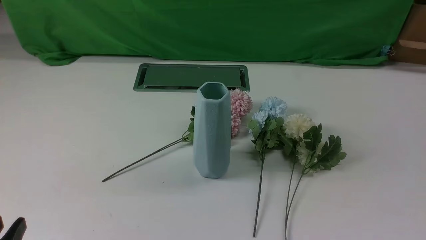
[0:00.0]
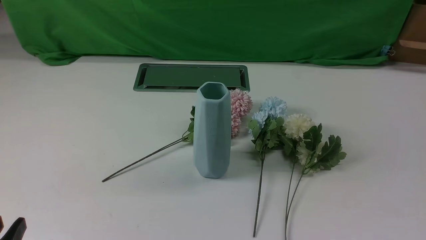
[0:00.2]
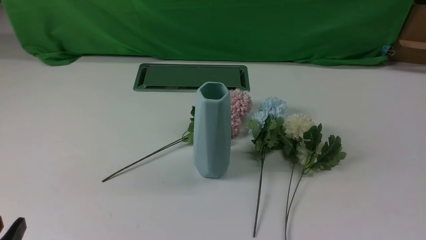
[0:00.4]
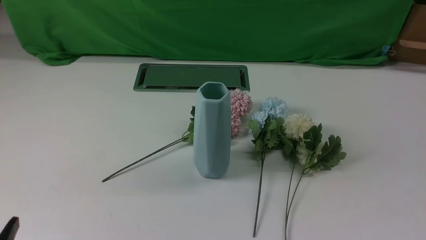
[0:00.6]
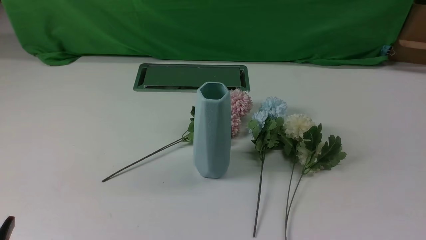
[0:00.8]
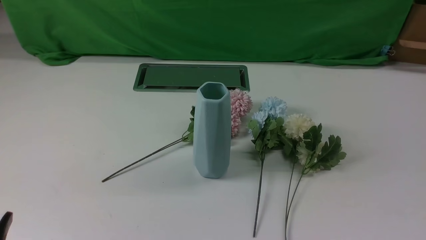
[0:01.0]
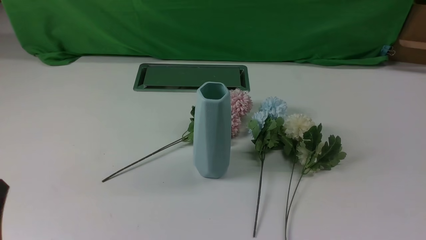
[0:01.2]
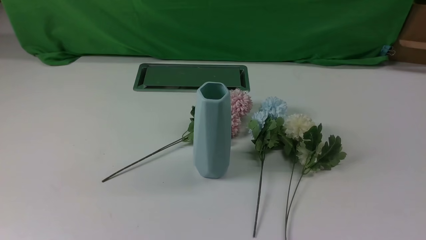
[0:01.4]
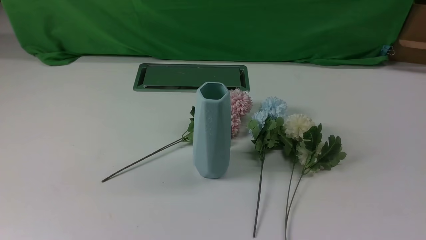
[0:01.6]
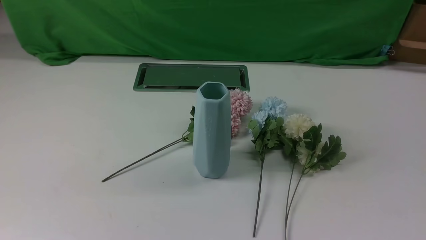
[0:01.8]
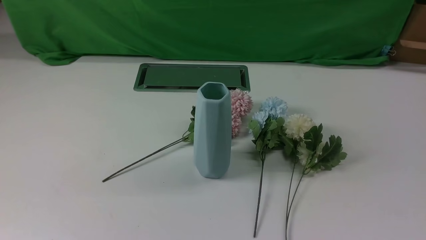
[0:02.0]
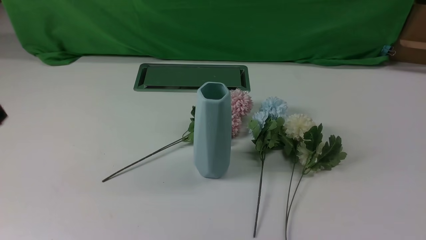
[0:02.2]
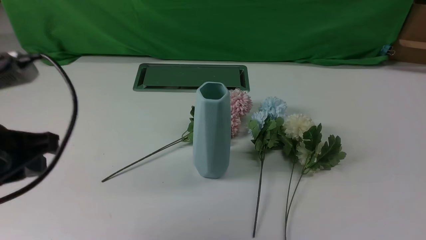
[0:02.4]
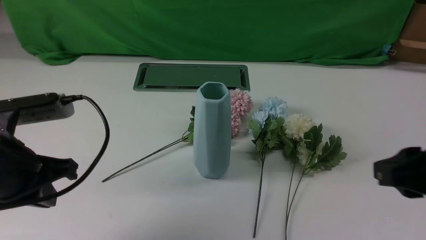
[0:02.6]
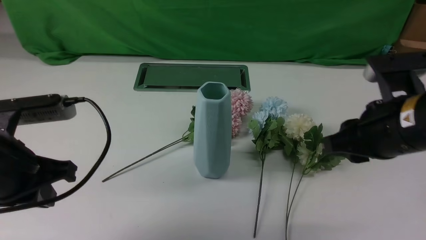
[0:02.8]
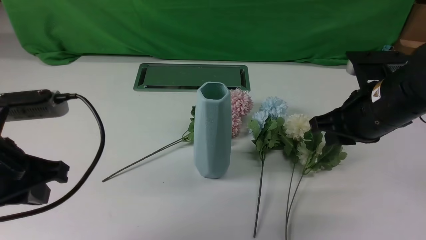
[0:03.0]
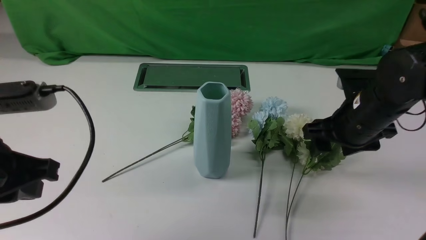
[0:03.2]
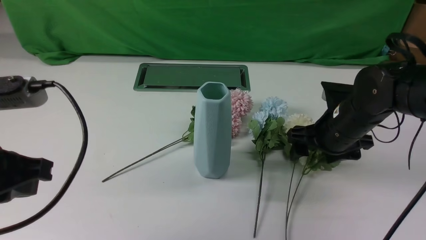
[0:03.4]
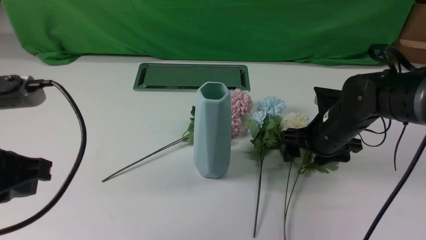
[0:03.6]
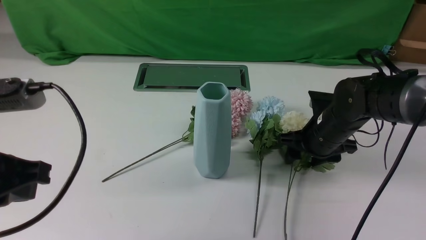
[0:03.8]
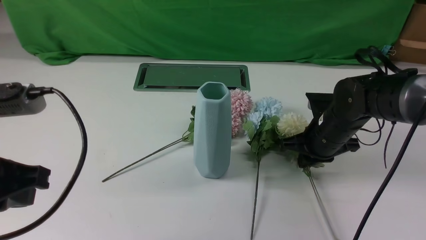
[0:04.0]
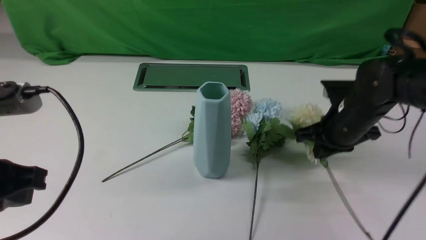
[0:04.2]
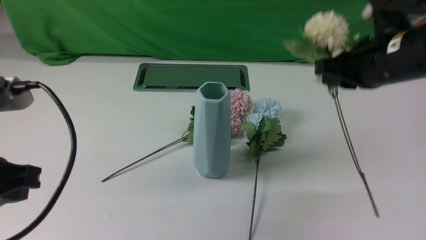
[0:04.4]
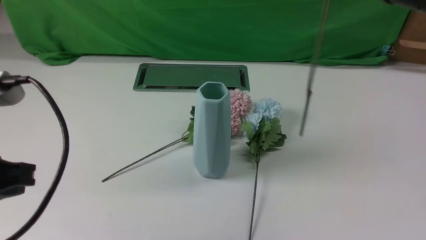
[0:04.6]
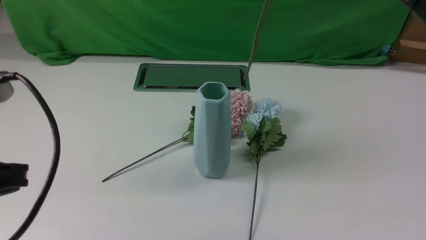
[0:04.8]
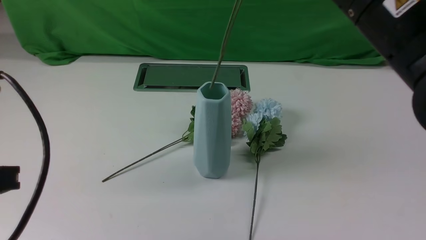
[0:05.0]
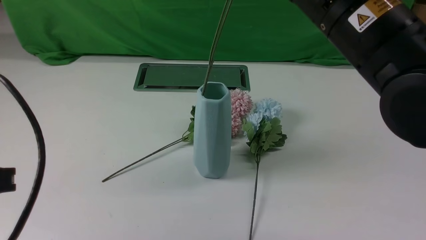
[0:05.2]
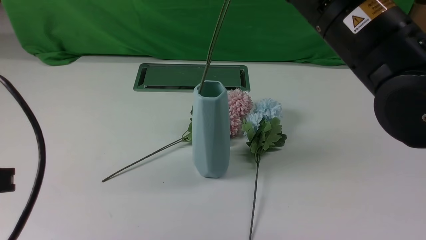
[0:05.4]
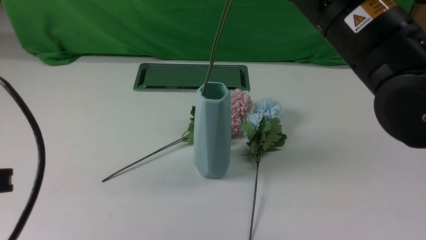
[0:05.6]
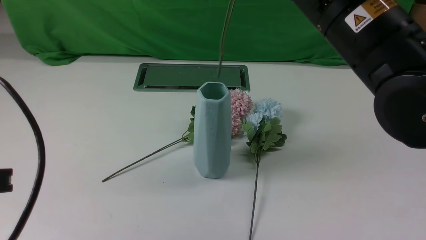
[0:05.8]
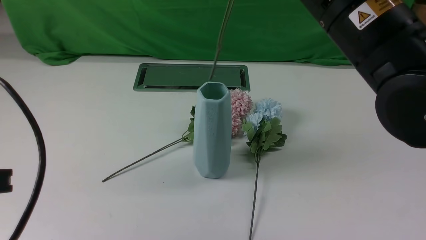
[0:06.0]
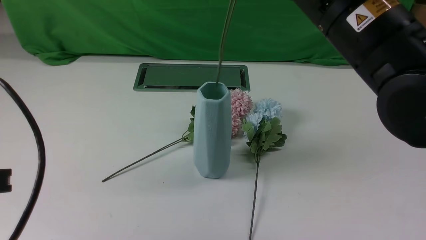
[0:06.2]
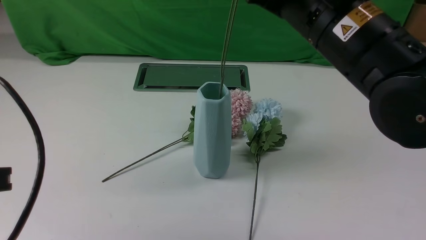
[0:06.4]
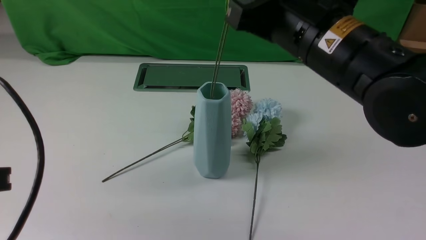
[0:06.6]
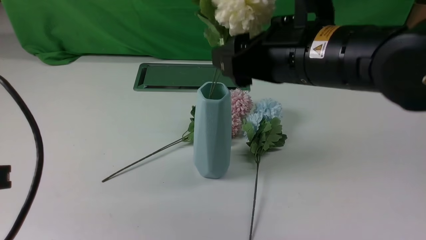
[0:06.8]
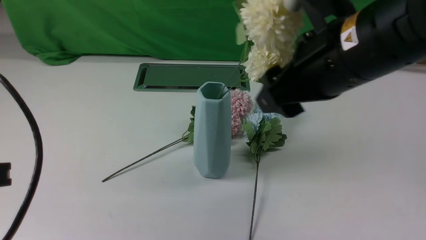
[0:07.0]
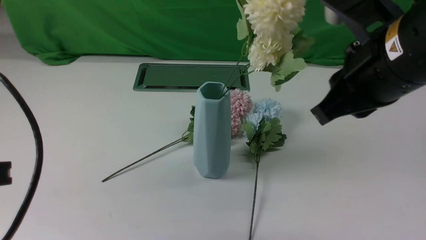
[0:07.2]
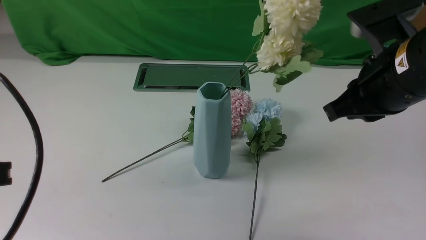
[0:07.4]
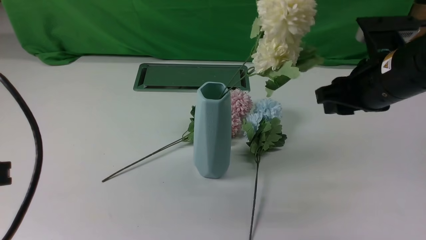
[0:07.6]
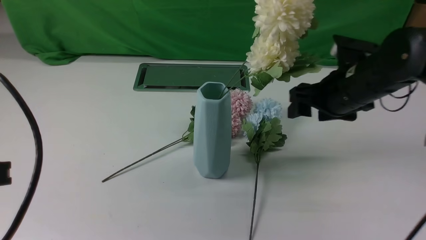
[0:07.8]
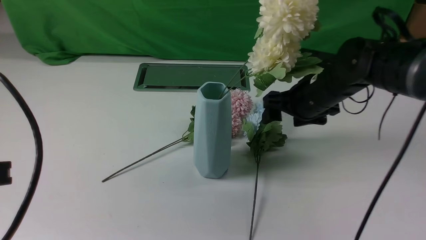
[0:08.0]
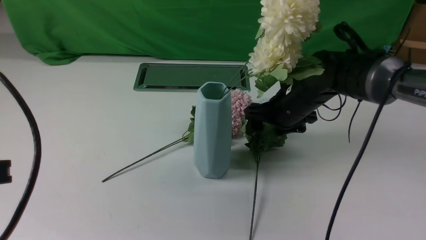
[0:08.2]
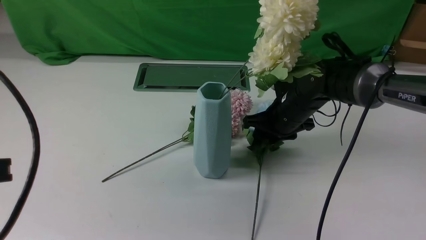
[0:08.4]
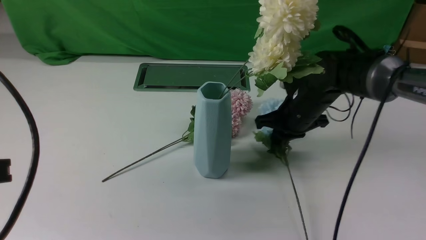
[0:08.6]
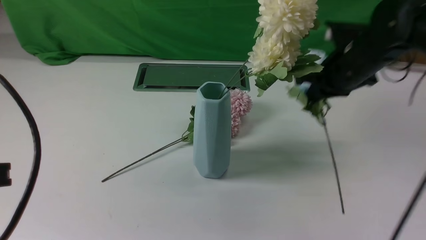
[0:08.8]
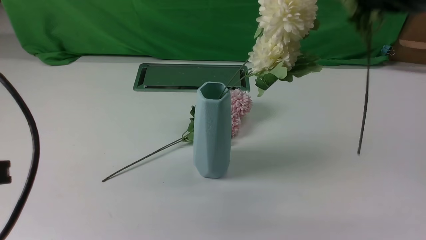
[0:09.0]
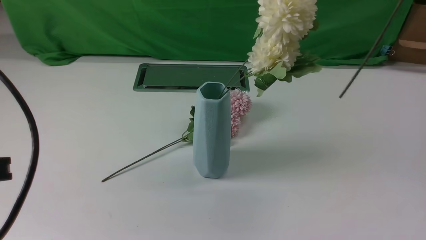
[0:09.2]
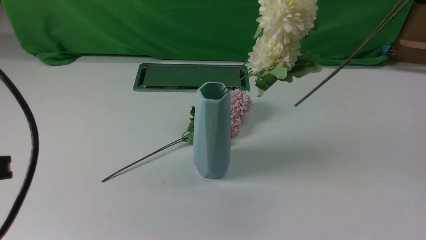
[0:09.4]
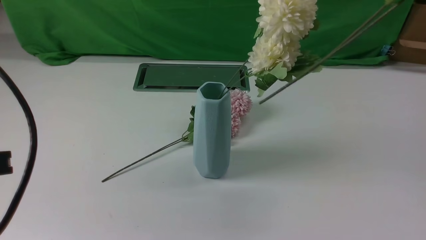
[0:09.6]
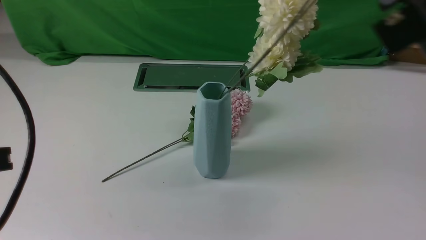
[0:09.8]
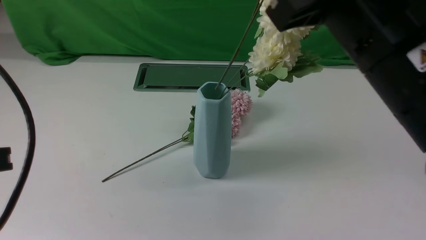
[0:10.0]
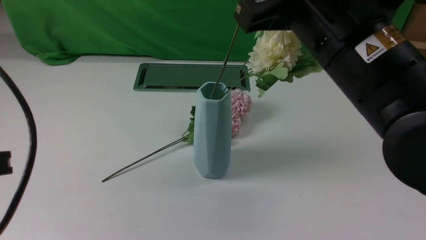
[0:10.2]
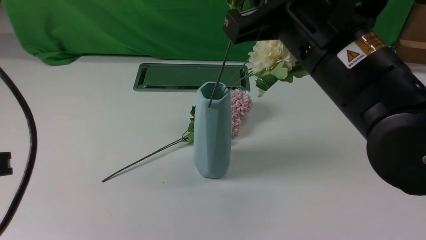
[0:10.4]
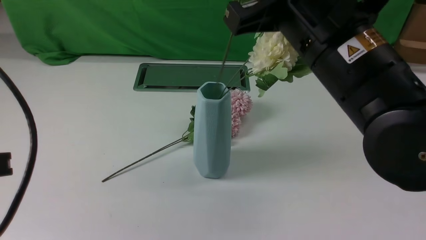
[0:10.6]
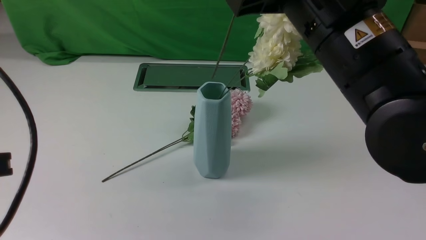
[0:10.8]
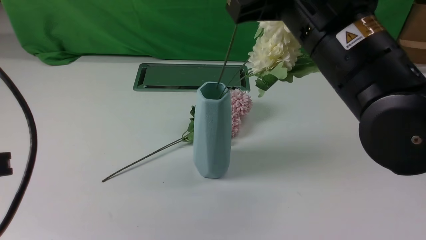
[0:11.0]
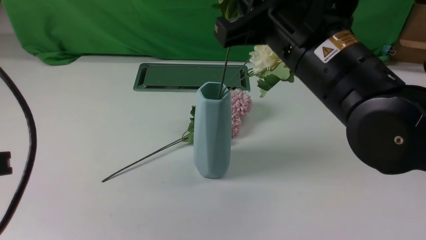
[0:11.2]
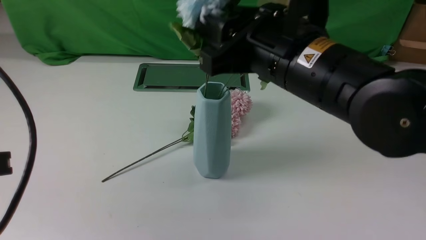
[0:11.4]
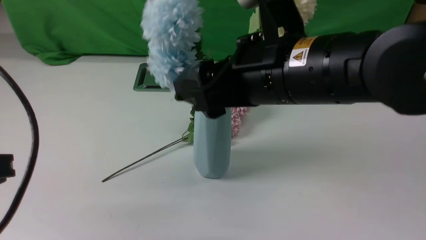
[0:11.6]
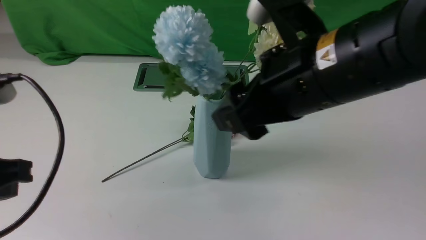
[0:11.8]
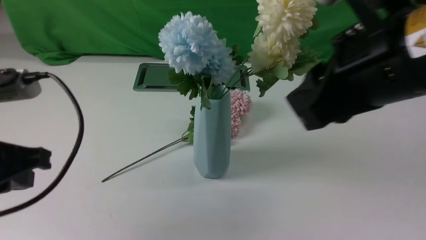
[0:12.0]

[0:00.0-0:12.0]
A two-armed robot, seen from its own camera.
Task of the whole recording: insert the flowers into the vase on the white table.
Step, 0:00.0 to 0:03.8: use the right arm to grab a bunch of fresh flowers.
Step, 0:04.0 to 0:07.0: use the right arm to insert the flowers into the vase.
Step, 0:07.2 to 0:08.4: use the right arm to grab a bunch of fresh flowers.
Step, 0:08.6 to 0:11.6: use the right arm to insert the flowers into the vase.
0:01.6 to 0:03.0: The left gripper travels forward by roughly 15 cm. The right gripper goes roughly 25 cm forward and to the left.
0:03.0 to 0:04.4: The left gripper ends up roughly 5 cm from where it was; the right gripper goes some 5 cm upward, and closes its fingers.
0:04.4 to 0:06.0: The right gripper heads to the left and upward, covering about 10 cm.
0:06.0 to 0:07.6: The right gripper goes about 15 cm downward, to the right and forward, and opens.
0:07.6 to 0:09.0: The right gripper travels upward by approximately 15 cm, and closes up.
0:09.0 to 0:10.4: The right gripper heads to the left and backward, covering roughly 15 cm.
0:10.4 to 0:12.0: The right gripper shifts by some 10 cm, and opens, then closes again. The left gripper is displaced forward by some 5 cm.

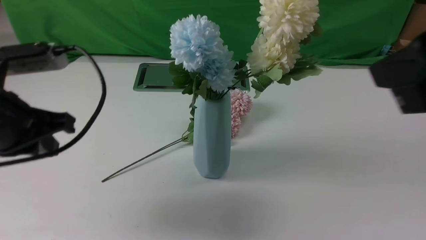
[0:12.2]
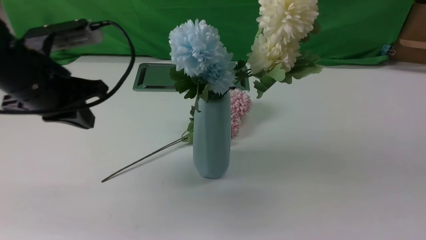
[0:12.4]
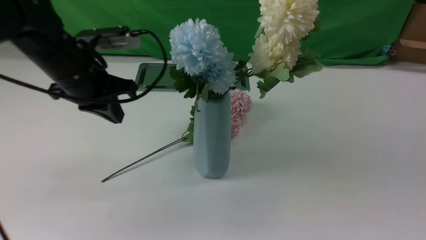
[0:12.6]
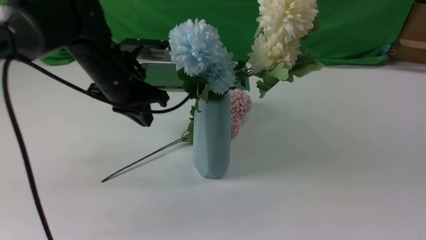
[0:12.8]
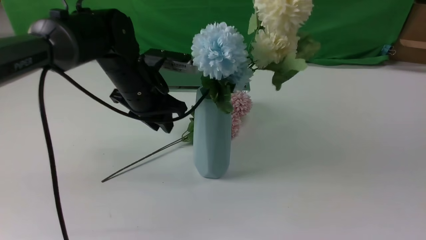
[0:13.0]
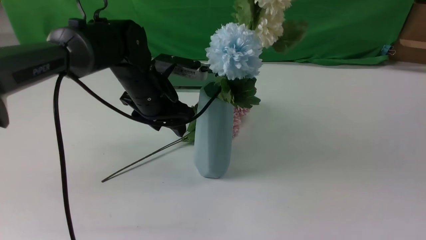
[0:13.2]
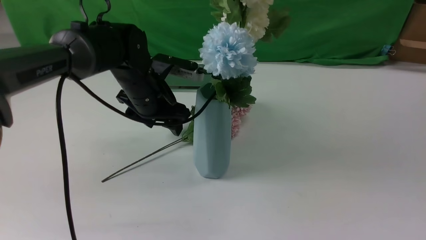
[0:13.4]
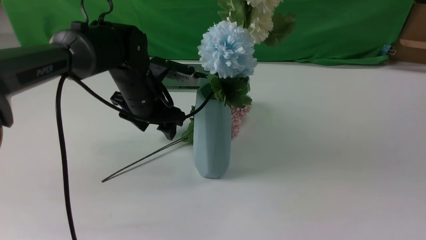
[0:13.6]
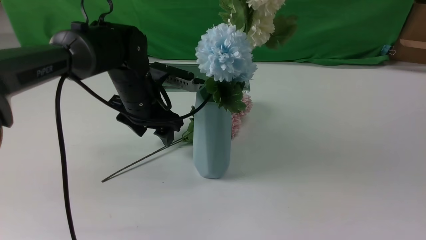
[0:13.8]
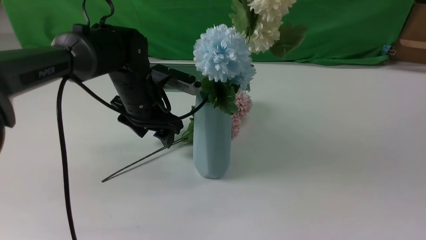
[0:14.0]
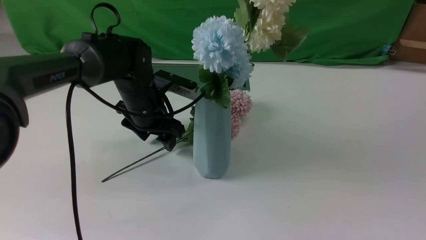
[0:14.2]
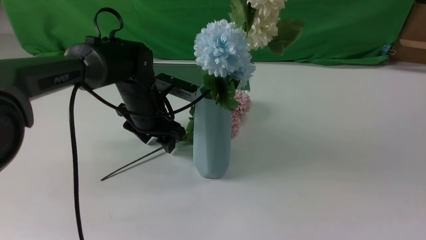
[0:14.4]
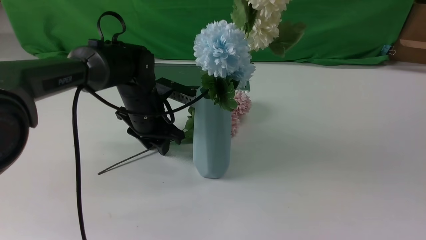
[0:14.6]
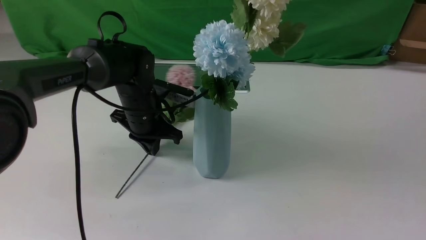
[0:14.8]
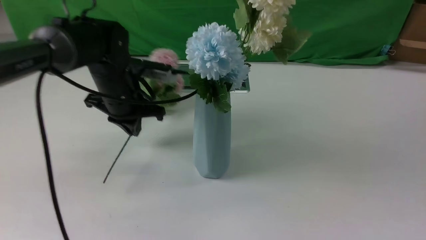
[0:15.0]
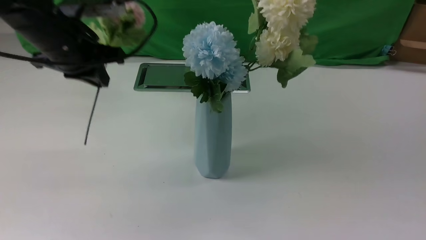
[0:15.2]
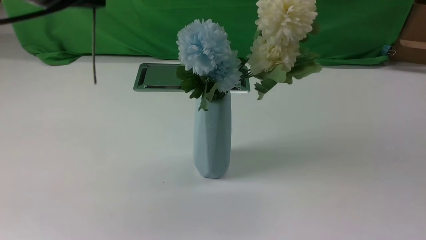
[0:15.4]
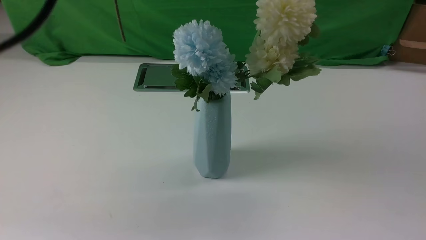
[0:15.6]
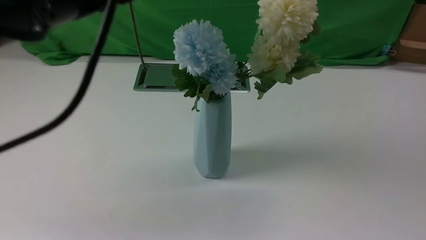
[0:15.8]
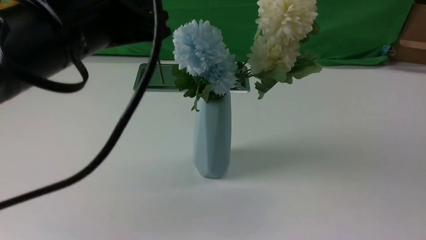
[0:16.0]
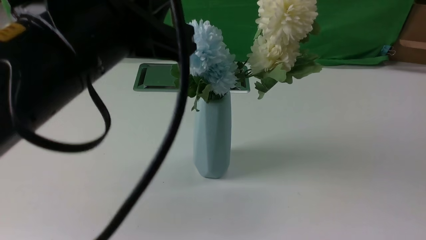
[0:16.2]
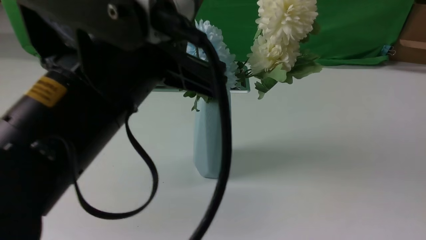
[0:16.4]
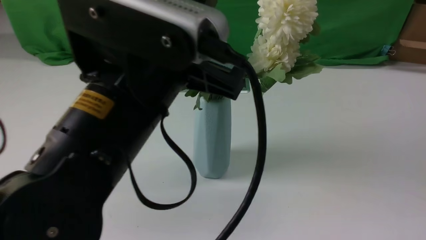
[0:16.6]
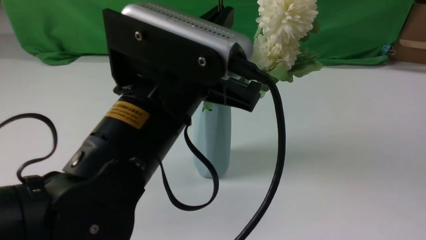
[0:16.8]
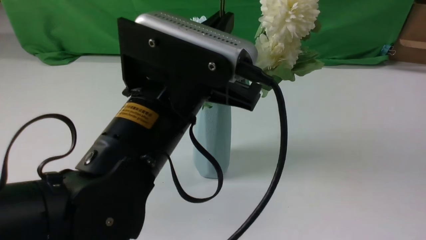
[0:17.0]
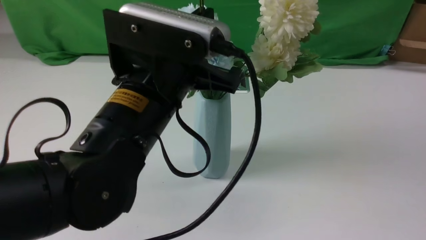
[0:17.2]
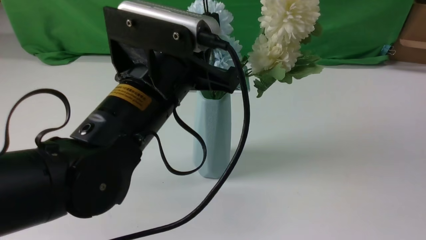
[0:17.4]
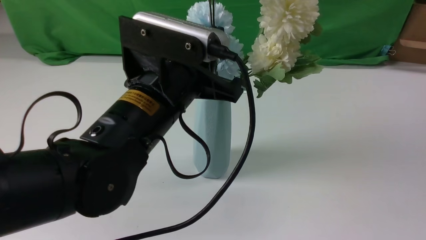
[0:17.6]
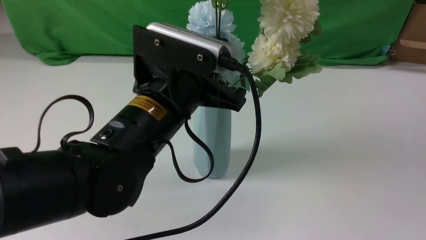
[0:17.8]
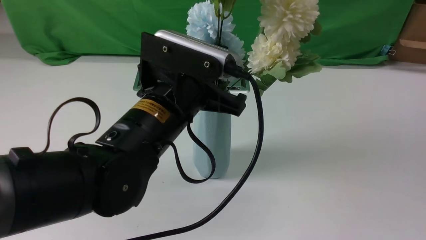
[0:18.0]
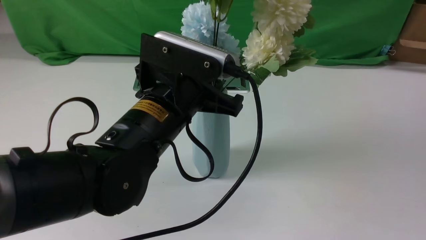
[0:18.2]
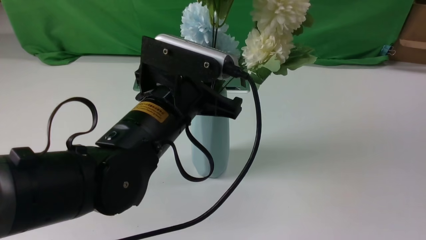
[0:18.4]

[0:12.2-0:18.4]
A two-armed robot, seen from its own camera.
Task of the whole recording: insert the flowers into the vase on the white table.
Step, 0:12.2 to 0:14.6: use the left arm to grab a bunch of fresh flowers.
0:12.2 to 0:13.8: The left gripper is displaced forward, downward and to the right by roughly 25 cm, and opens up; the right gripper is displaced to the right and backward by approximately 10 cm.
0:13.8 to 0:15.4: The left gripper is displaced upward and backward by roughly 25 cm, and closes up.
0:15.4 to 0:16.8: The left gripper goes some 20 cm to the right, backward and downward.
0:16.8 to 0:18.4: The left gripper travels downward and forward by approximately 10 cm.
